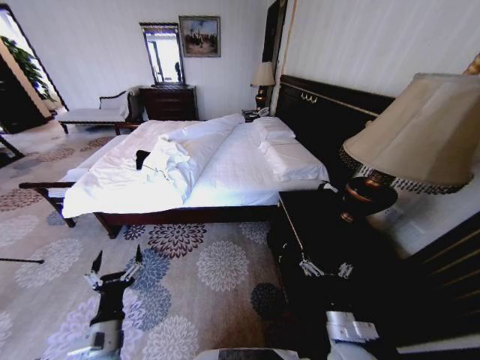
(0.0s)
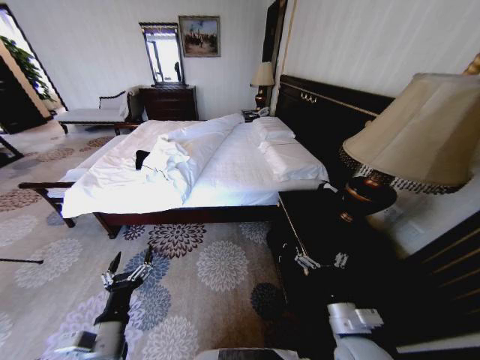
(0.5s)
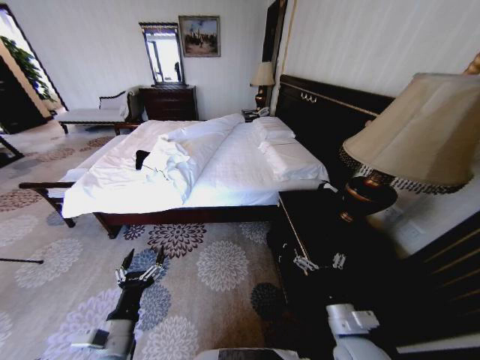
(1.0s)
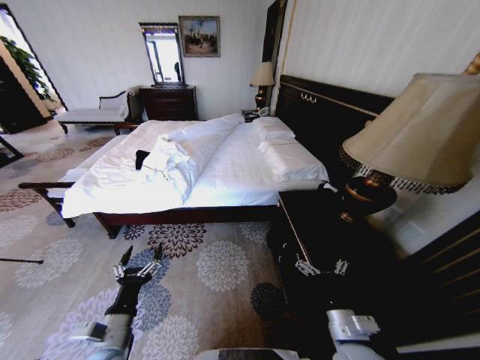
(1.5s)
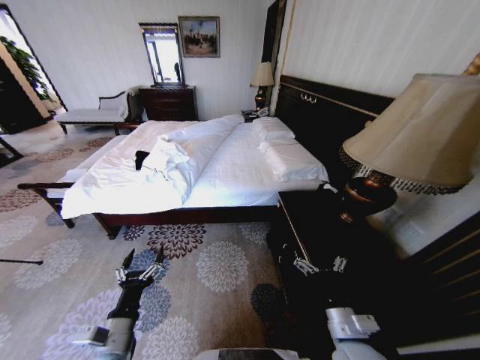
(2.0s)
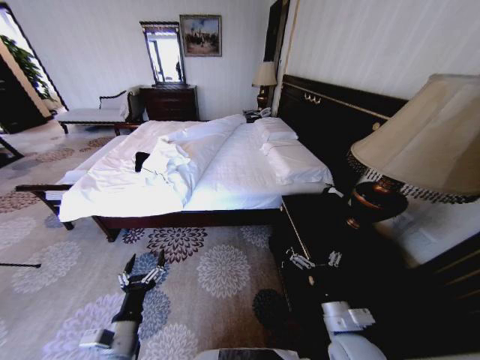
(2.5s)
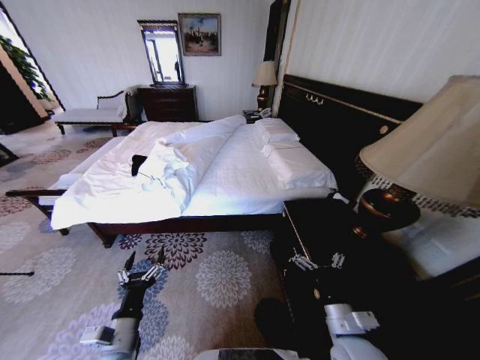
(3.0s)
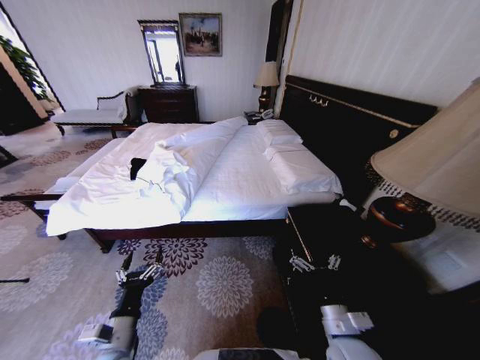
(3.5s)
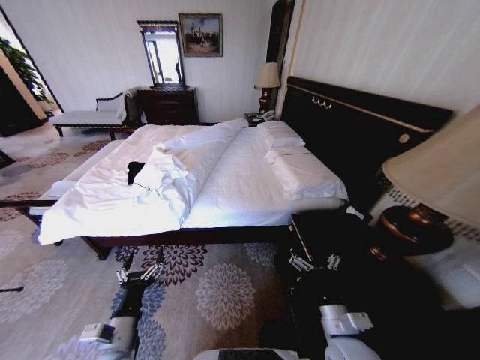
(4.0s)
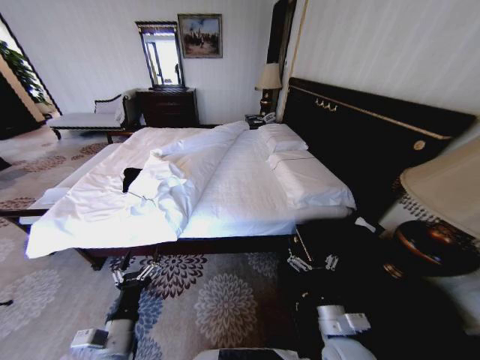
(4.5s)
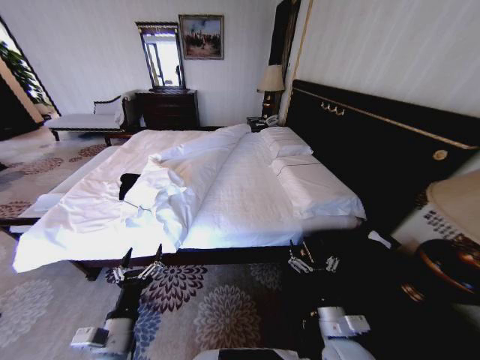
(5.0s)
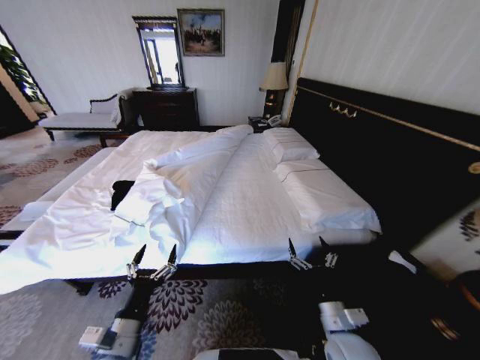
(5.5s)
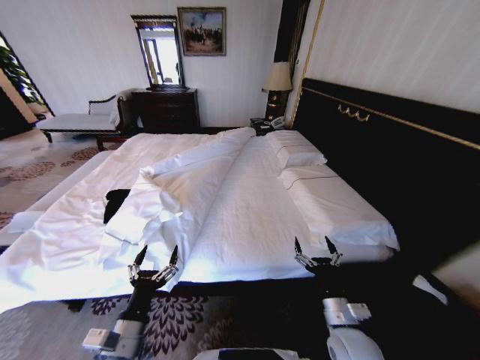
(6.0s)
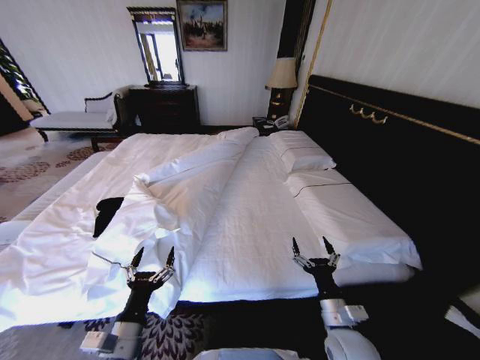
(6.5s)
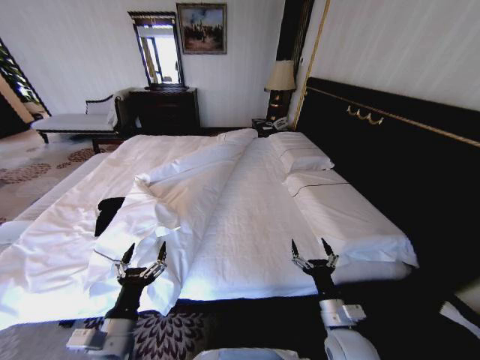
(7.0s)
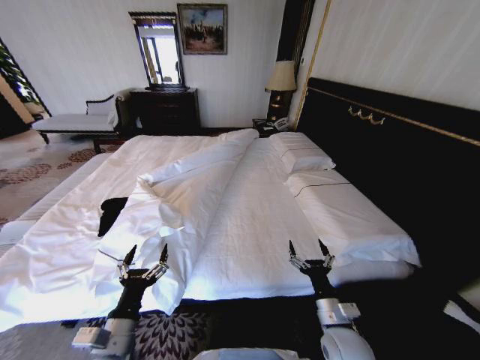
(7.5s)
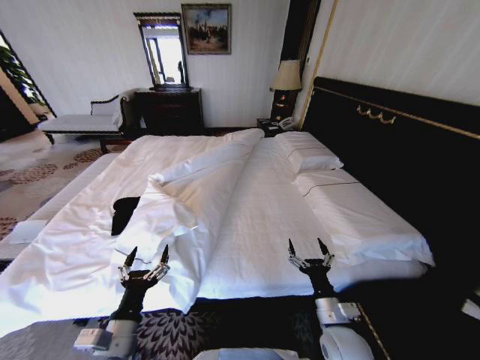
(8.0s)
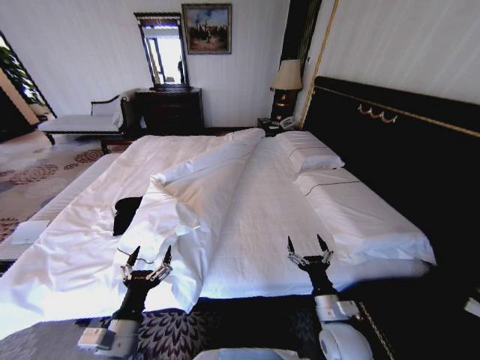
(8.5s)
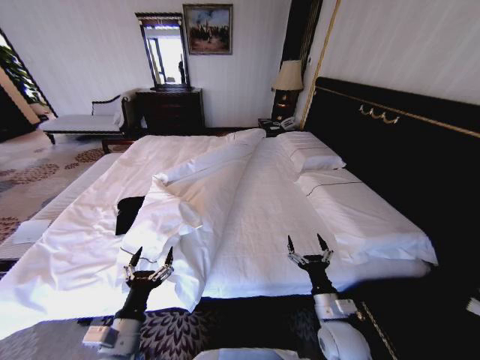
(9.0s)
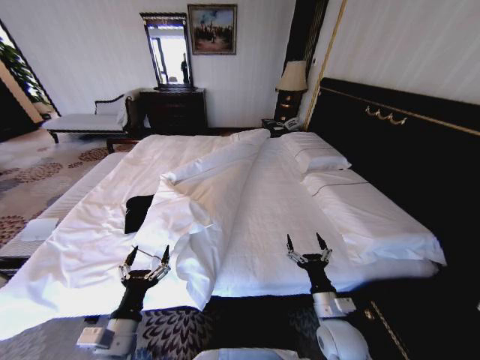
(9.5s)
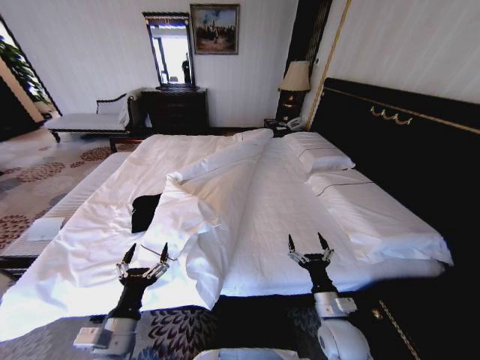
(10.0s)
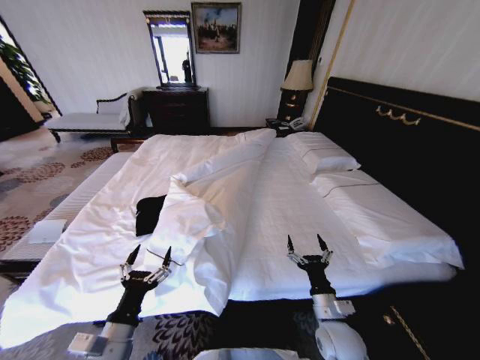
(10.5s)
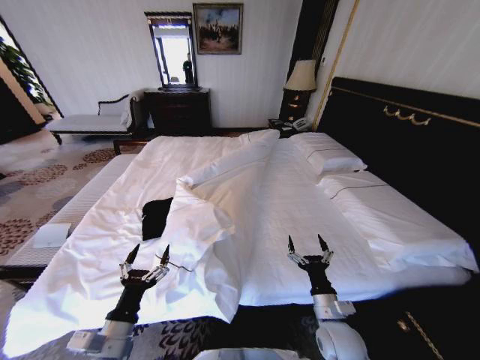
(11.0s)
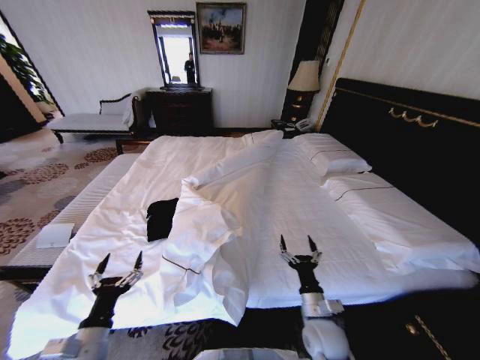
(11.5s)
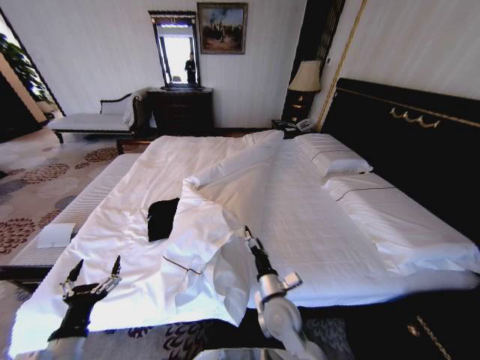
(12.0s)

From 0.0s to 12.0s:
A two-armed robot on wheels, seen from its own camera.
Task of the whole recording: Fold the clothes on the bed.
From 10.0s to 12.0s: The grippers both shift to the left by approximately 10 cm.

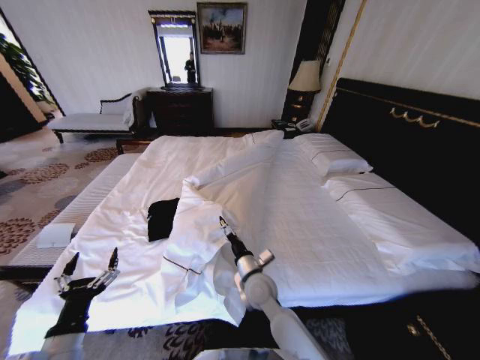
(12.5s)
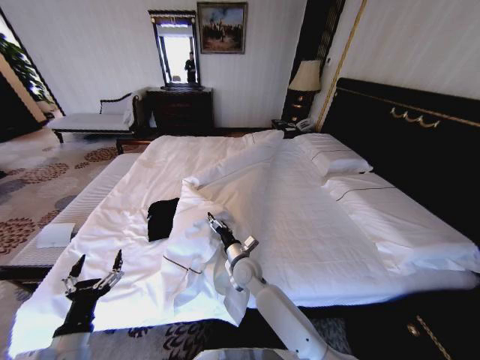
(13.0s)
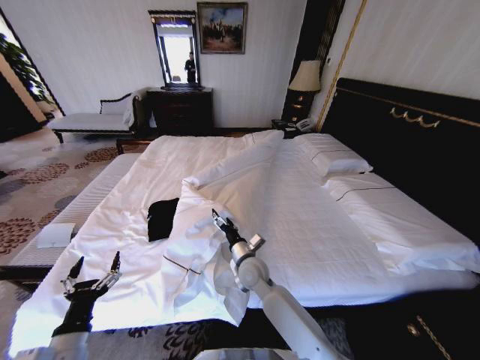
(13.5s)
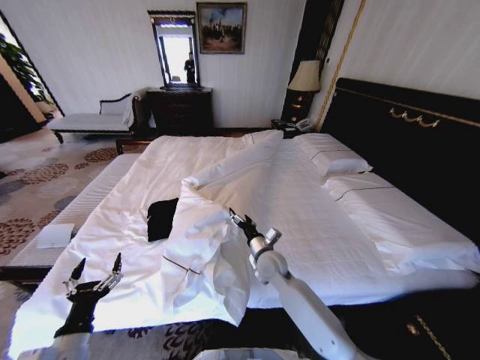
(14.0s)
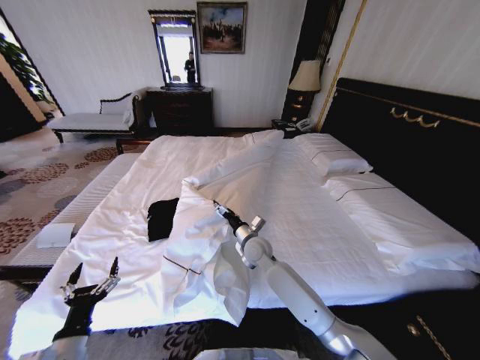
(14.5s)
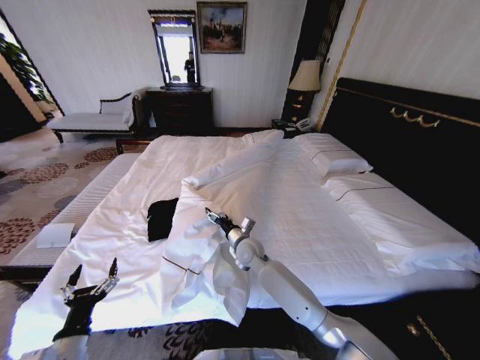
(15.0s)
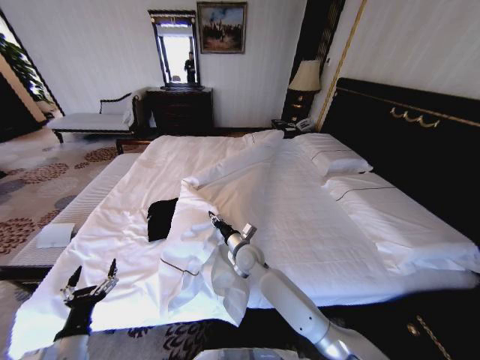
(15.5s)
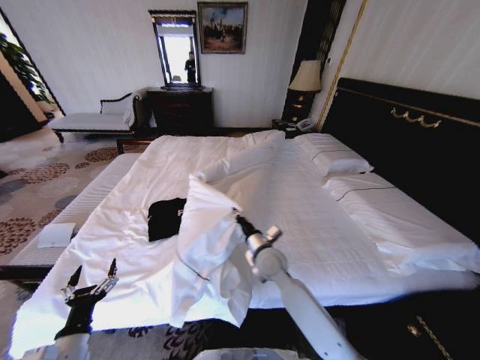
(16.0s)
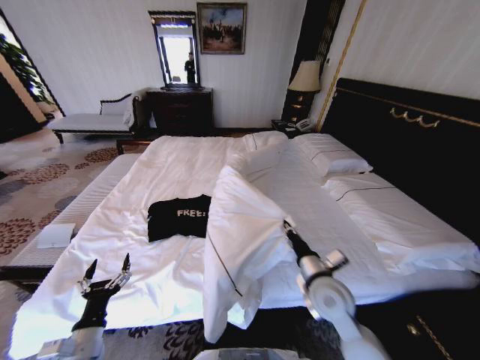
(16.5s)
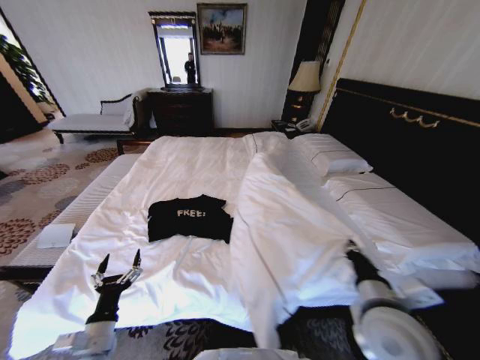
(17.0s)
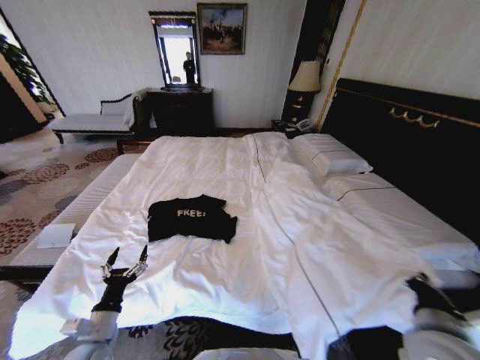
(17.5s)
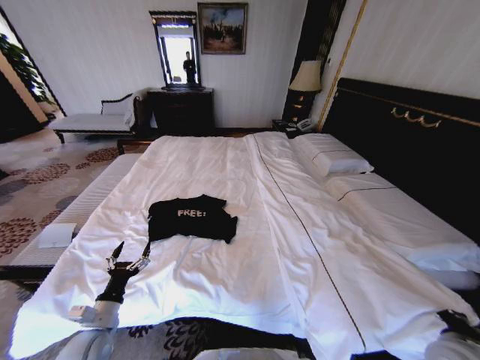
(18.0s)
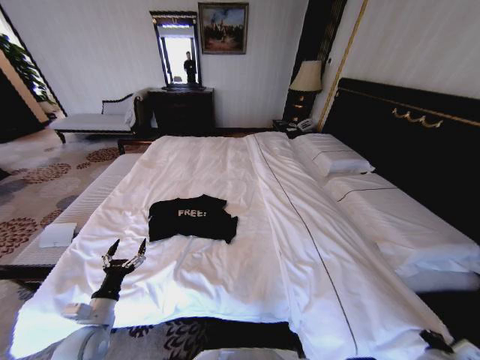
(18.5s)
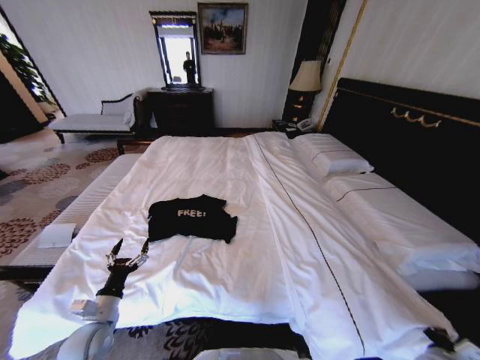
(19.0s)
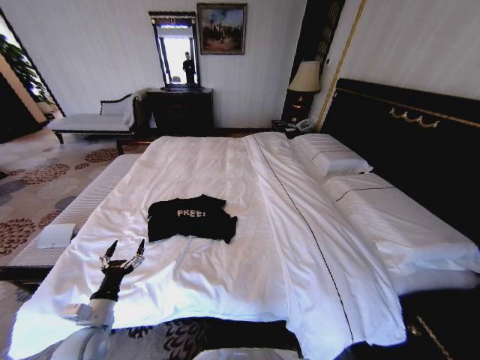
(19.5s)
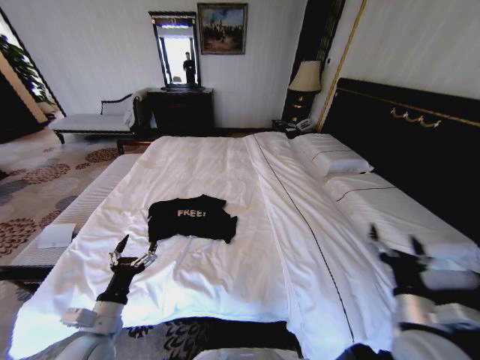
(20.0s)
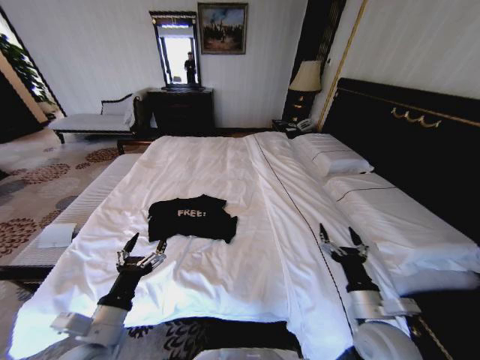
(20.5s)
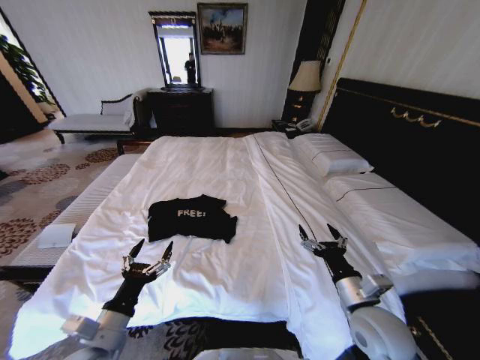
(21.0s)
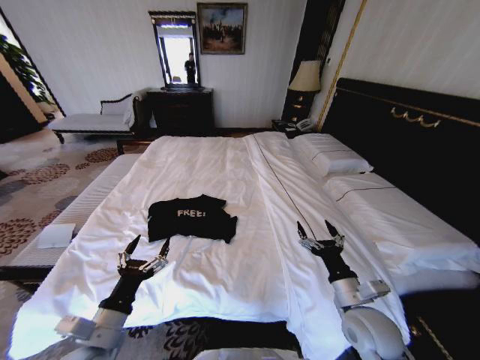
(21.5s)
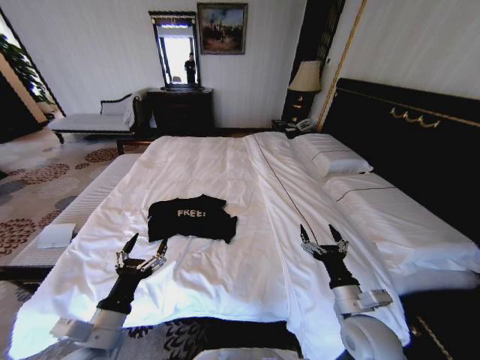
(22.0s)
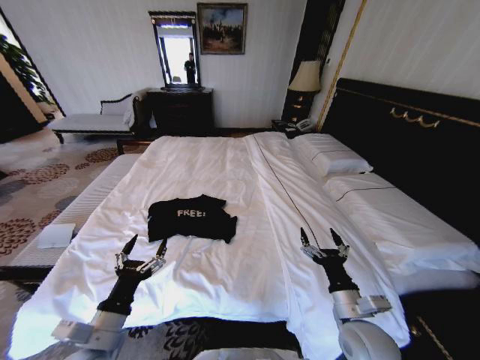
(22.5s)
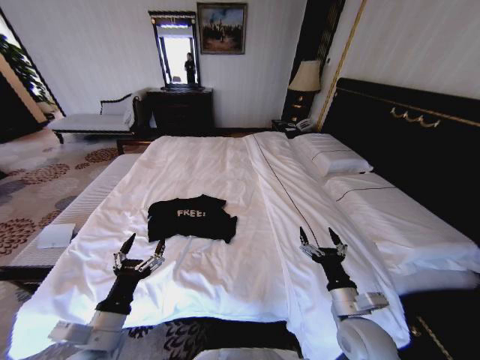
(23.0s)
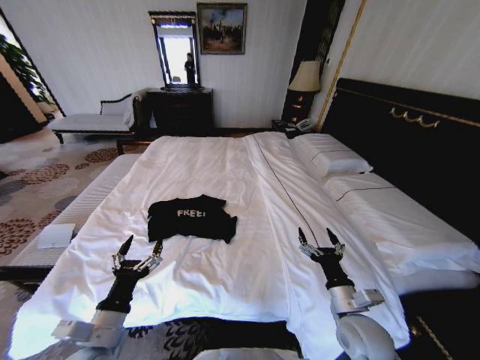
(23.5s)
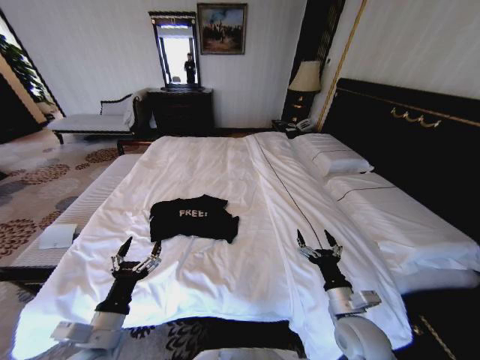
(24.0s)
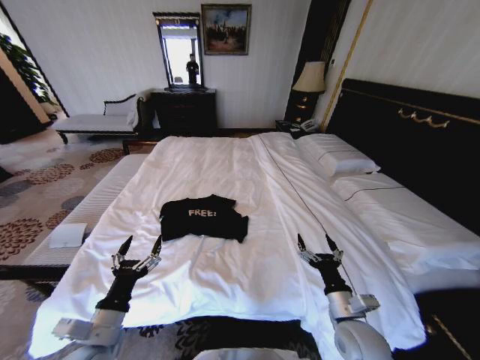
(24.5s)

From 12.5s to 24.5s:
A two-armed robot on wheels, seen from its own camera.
Task of the whole recording: Fold the clothes on the bed.
From 12.5s to 14.5s: The right gripper travels forward by approximately 10 cm.
From 14.5s to 16.5s: The right gripper goes roughly 20 cm backward and to the right, and closes up.
From 16.5s to 18.5s: The left gripper heads forward, covering roughly 5 cm. Meanwhile the right gripper moves to the right and backward, approximately 25 cm.
From 18.5s to 20.5s: The right gripper goes approximately 15 cm to the left and upward, and opens up. The left gripper moves upward and to the right, roughly 15 cm.
From 20.5s to 22.5s: There are only small adjustments of the grippers.

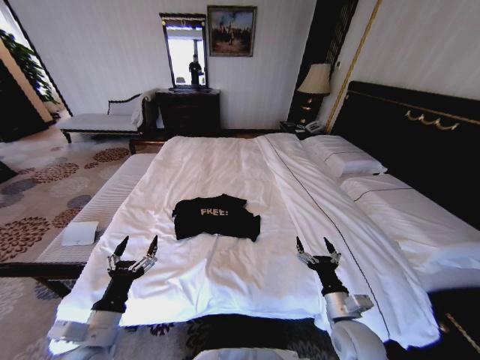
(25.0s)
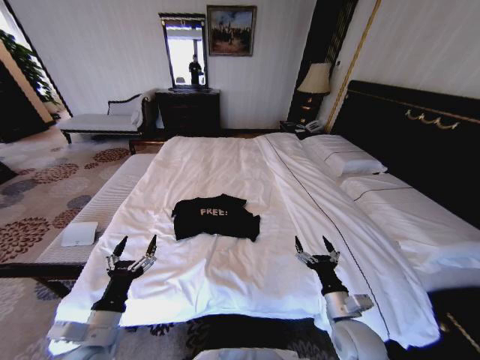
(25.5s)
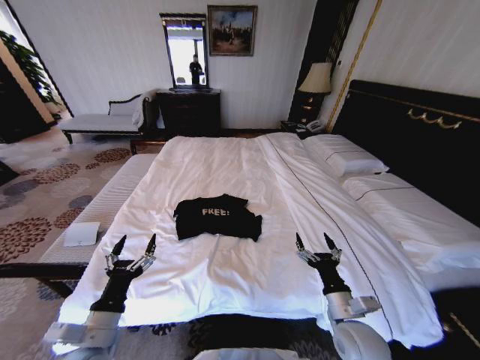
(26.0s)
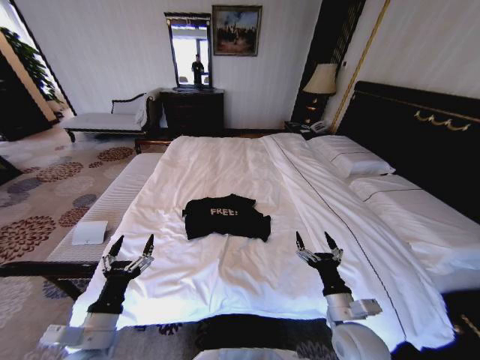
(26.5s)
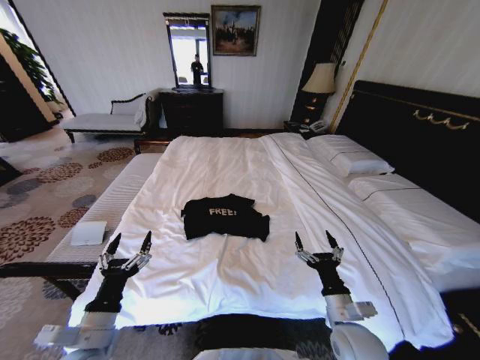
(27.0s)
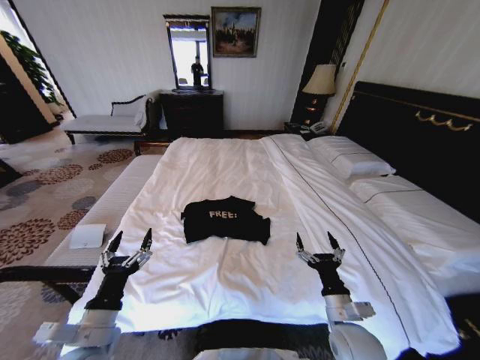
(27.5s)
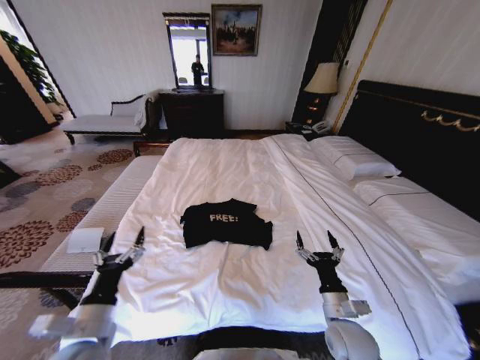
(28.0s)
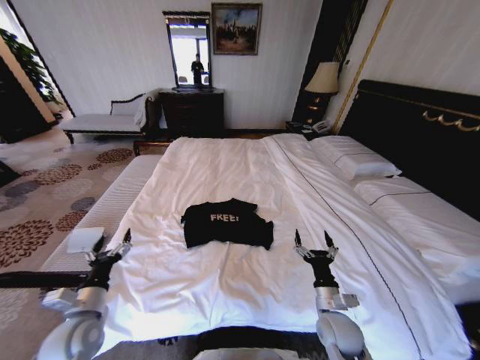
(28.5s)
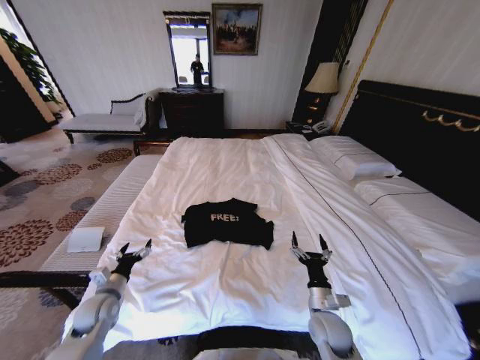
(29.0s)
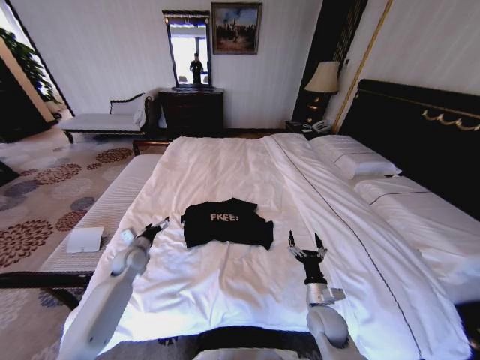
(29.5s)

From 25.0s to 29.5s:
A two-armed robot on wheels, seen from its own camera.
Task of the whole recording: Fold the clothes on the bed.
From 27.0s to 29.5s: The right gripper is displaced downward and forward by approximately 10 cm. Meanwhile the left gripper goes about 30 cm forward.
